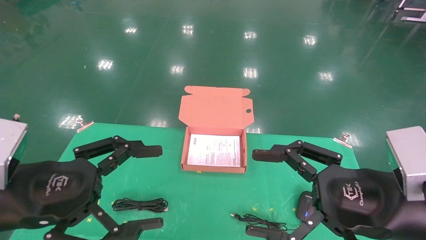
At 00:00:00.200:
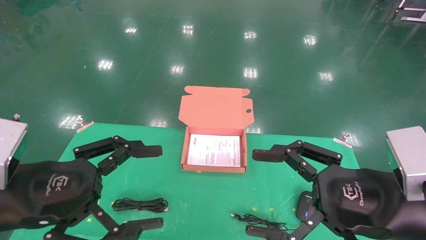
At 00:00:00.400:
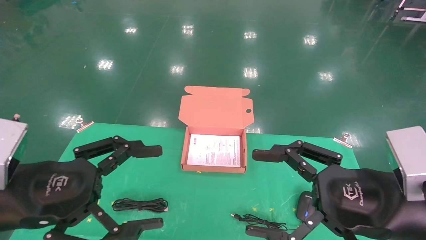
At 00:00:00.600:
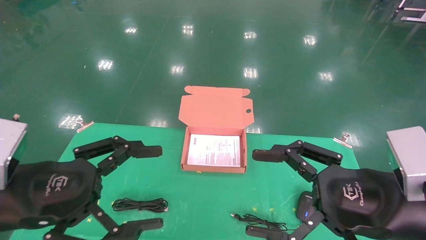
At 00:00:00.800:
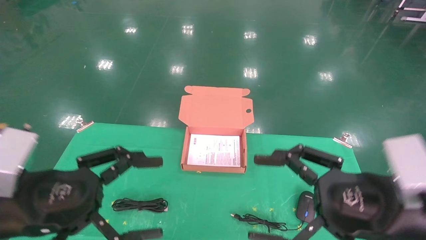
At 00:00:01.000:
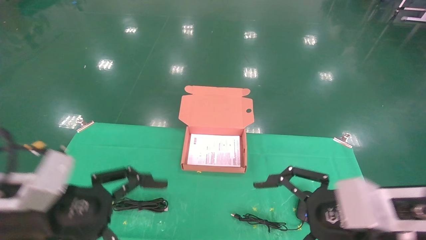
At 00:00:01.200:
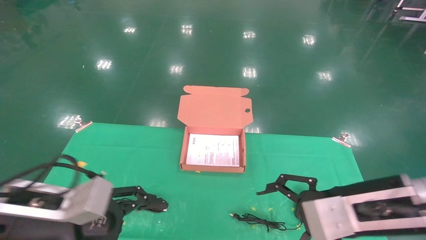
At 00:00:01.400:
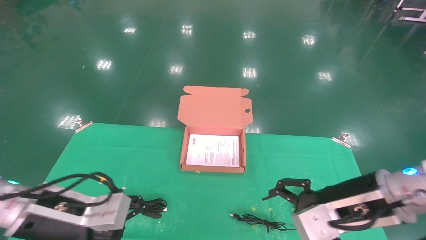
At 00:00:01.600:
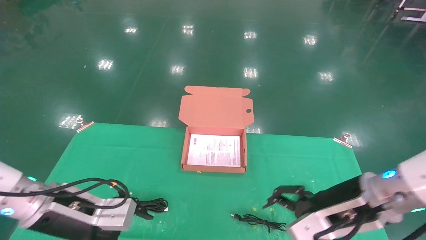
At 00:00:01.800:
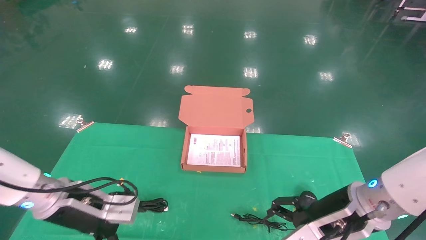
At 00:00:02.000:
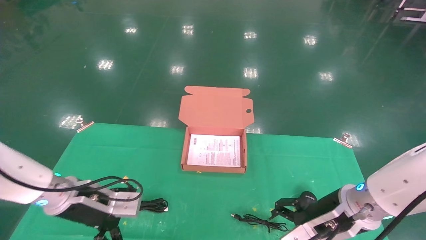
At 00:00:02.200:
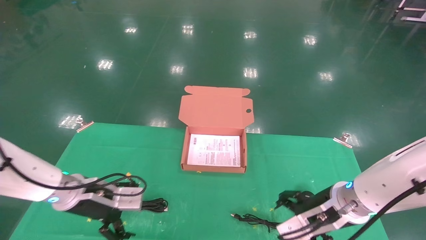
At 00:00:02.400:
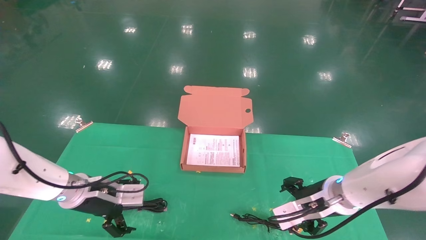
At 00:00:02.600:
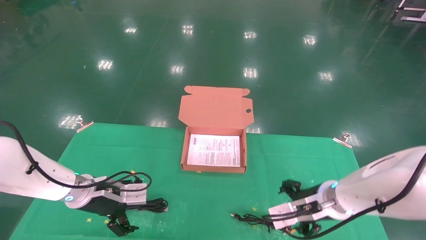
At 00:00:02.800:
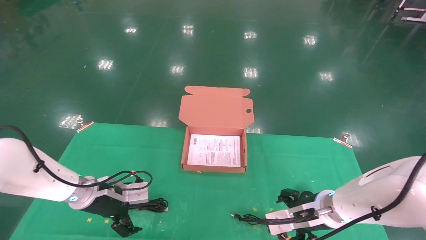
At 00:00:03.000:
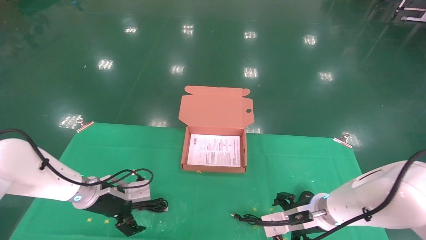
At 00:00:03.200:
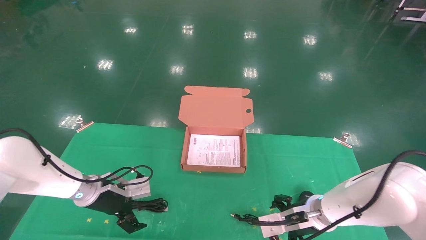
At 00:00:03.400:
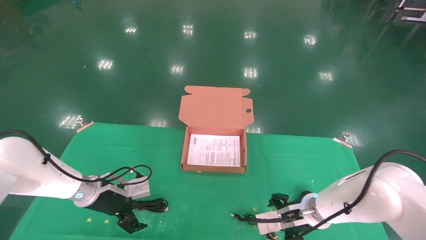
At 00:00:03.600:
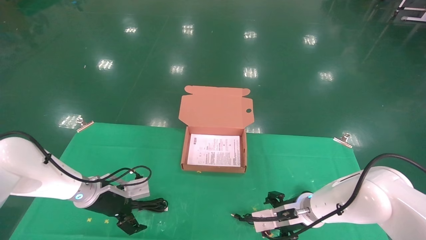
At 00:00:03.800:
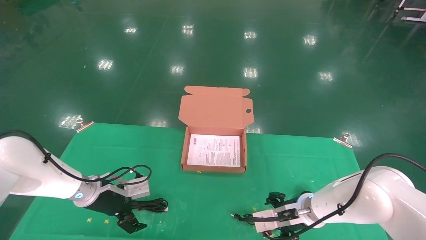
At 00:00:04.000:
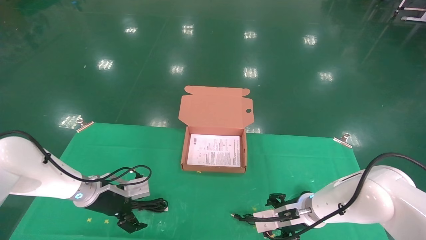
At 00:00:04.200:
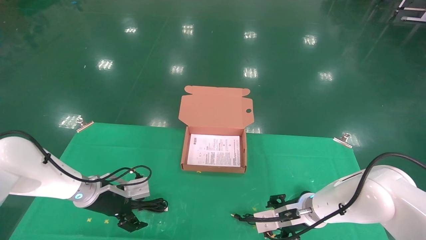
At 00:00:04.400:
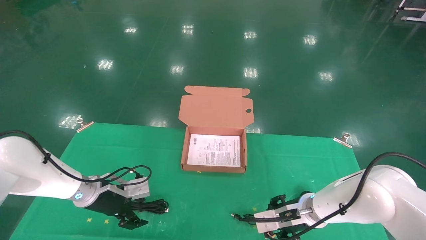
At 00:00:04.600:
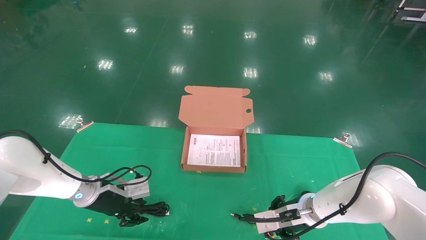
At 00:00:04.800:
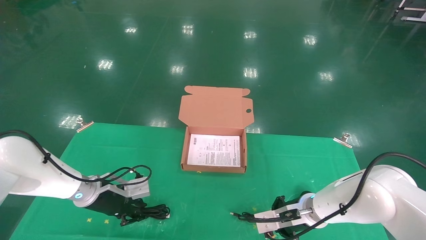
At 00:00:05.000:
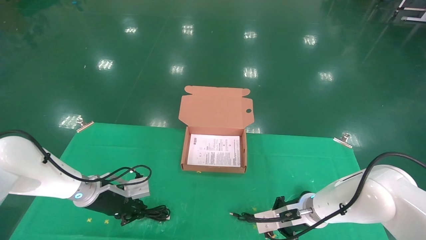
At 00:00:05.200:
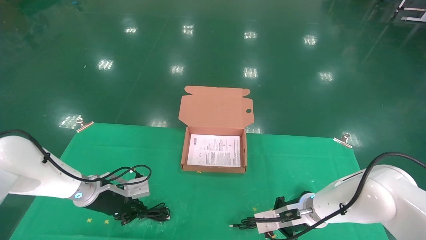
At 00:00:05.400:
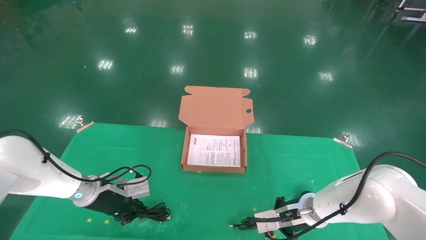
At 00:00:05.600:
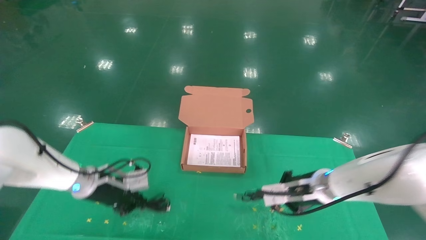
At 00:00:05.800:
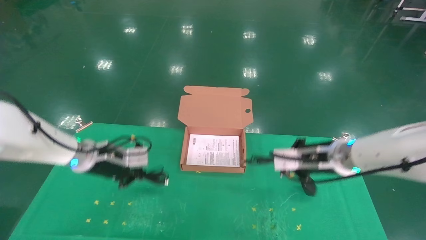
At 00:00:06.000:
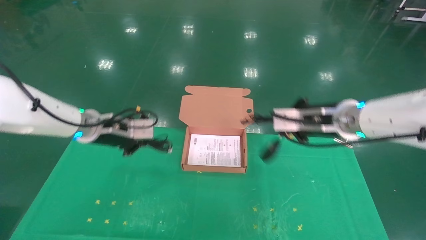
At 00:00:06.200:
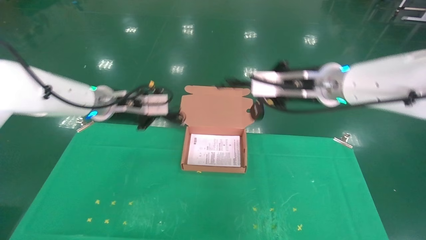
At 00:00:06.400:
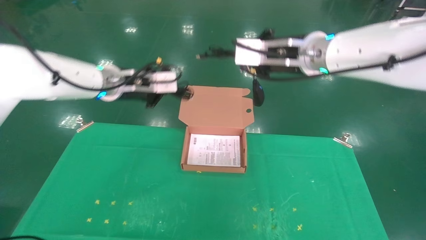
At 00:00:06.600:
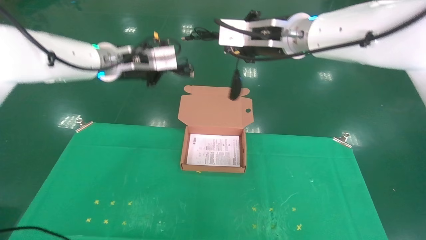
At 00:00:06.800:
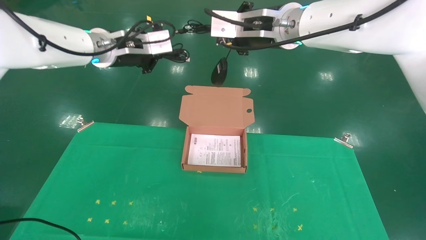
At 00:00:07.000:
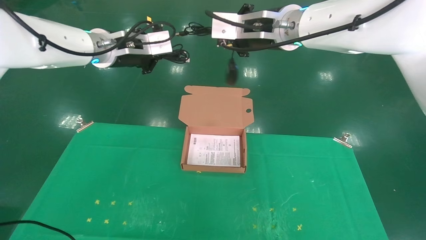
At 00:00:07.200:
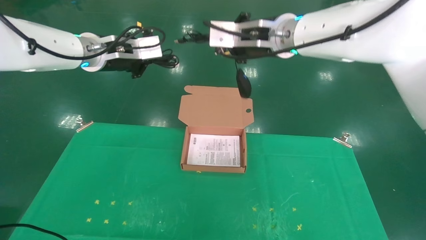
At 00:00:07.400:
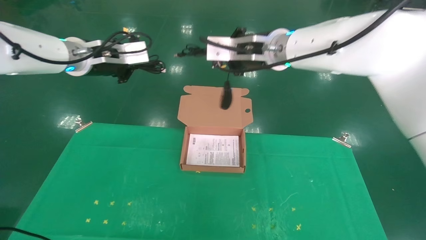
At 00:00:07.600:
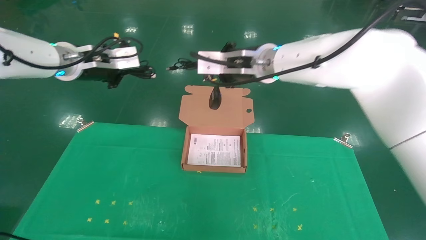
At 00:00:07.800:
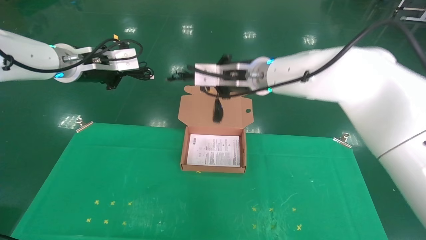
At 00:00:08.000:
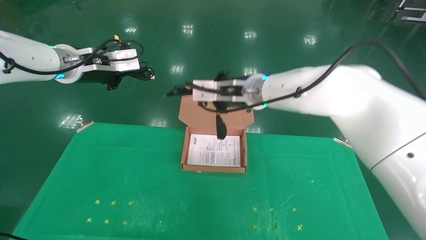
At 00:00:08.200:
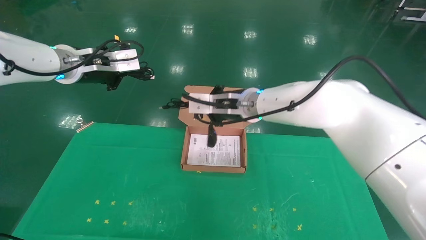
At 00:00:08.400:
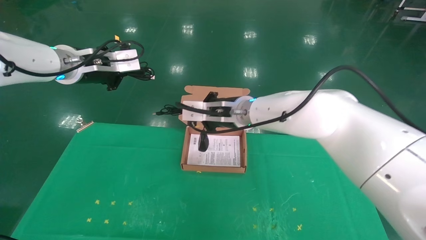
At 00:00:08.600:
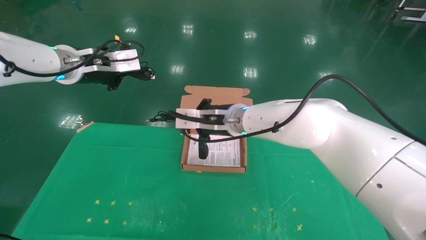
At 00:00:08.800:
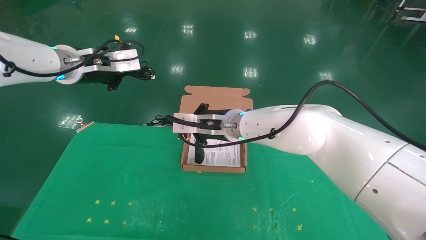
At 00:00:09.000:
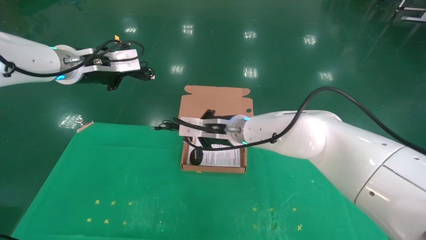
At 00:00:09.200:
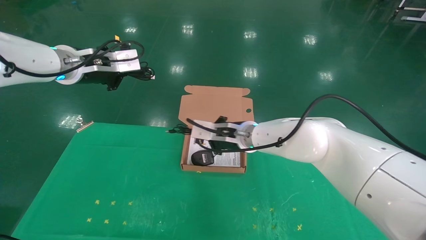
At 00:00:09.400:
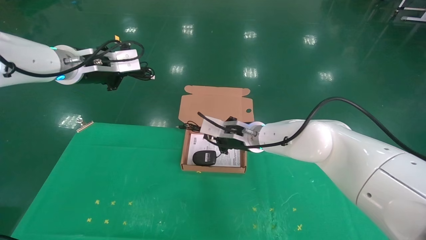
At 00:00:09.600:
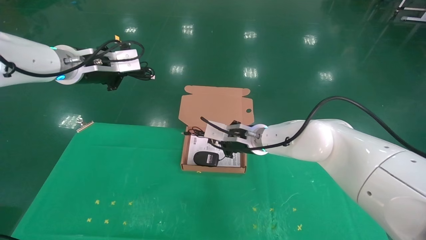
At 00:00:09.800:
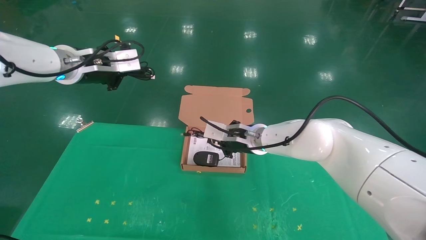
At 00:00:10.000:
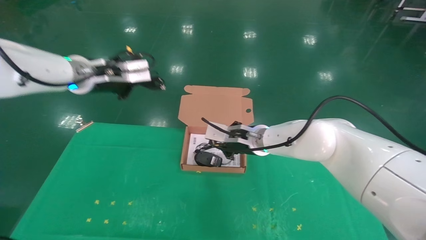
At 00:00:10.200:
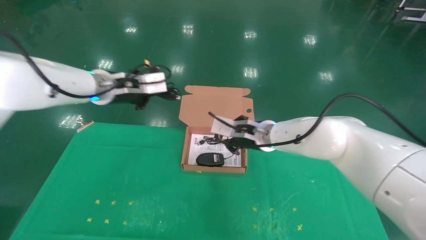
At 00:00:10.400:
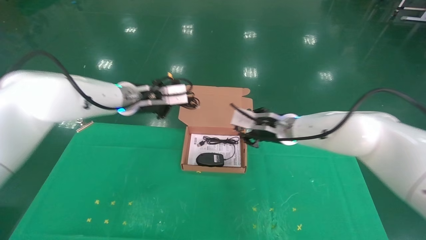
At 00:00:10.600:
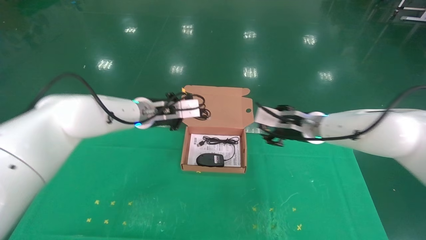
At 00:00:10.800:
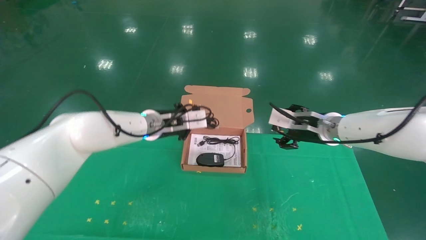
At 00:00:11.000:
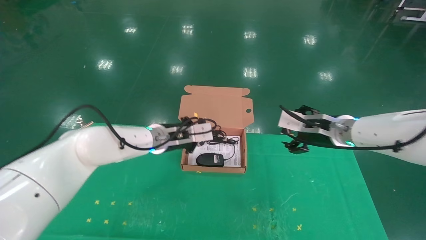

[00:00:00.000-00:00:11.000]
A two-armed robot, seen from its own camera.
Task of the whole recording: grasp data cable left put into box grasp mouse right put into box.
Step, 00:00:00.800 to 00:00:05.800: Grab and pick up both the mouse and power cord from the accessory packaging area at the same time.
00:00:00.000 to 00:00:01.600: The left gripper heads forward and downward, covering roughly 10 cm. The right gripper travels forward by approximately 10 cm.
00:00:01.600 to 00:00:03.200: The left gripper heads forward and downward, covering some 15 cm. The right gripper shifts some 15 cm downward and forward.
00:00:03.200 to 00:00:04.800: The right gripper closes up, while the left gripper closes.
00:00:04.800 to 00:00:06.200: The two grippers go roughly 25 cm upward. The left gripper closes up. Meanwhile the right gripper closes its fingers.
00:00:06.200 to 00:00:07.800: The right gripper goes some 10 cm to the left. The left gripper travels upward by approximately 10 cm.
00:00:07.800 to 00:00:09.400: The right gripper goes approximately 15 cm downward.
00:00:09.400 to 00:00:11.000: The left gripper is displaced downward and to the right by approximately 25 cm, while the right gripper is displaced to the right by approximately 20 cm, and opens its fingers.

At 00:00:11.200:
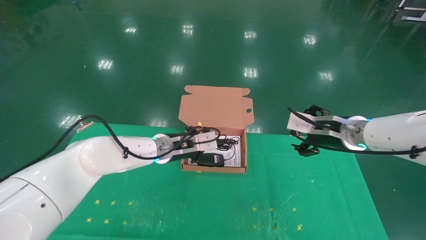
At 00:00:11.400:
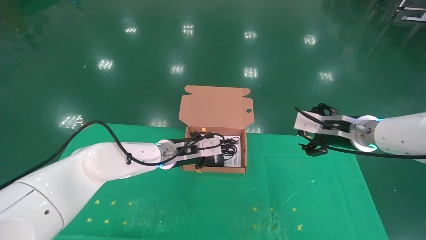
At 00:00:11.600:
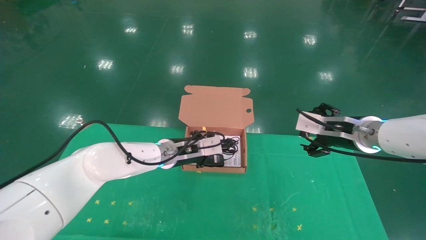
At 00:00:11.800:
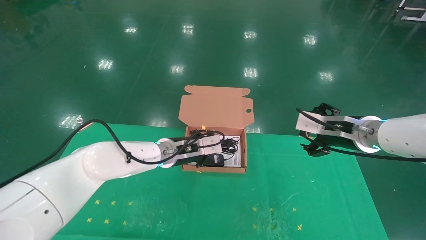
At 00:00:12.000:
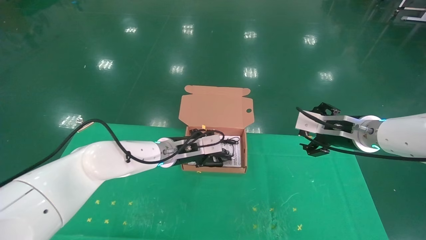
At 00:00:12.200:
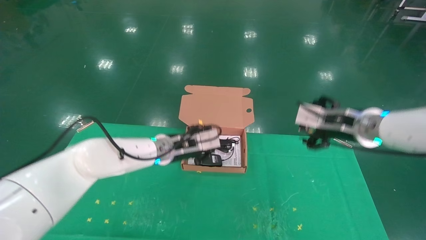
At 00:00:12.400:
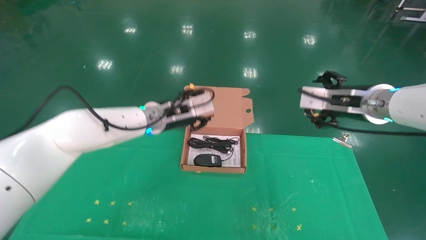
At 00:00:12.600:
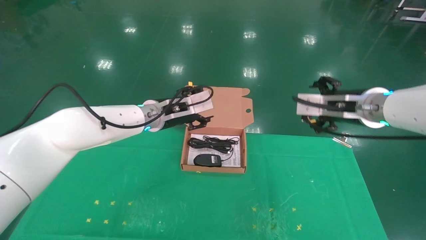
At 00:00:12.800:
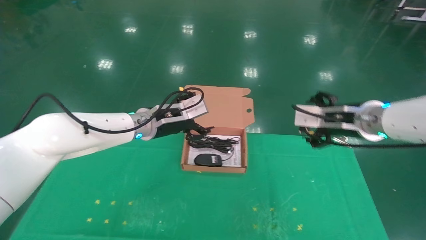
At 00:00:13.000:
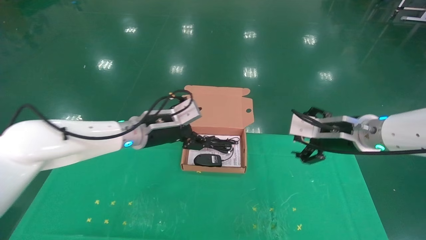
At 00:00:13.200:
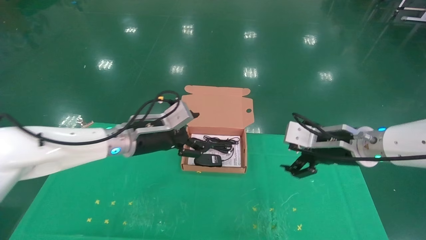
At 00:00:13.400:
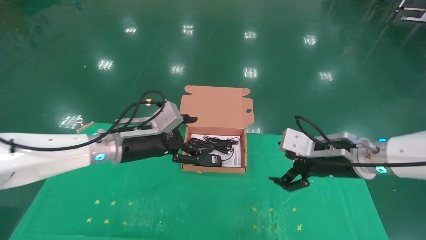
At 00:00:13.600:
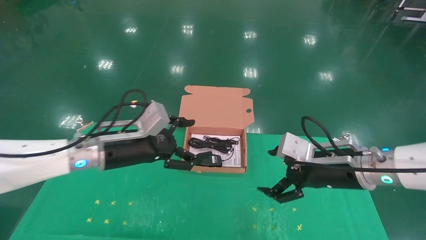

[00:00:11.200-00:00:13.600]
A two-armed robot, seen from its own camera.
Task of the whole recording: grasp data cable left put into box grasp mouse right put into box.
00:00:11.200 to 00:00:12.400: The right gripper goes about 5 cm upward.
00:00:12.400 to 00:00:13.600: The left gripper is displaced backward and to the left by approximately 10 cm, and opens its fingers; the right gripper is displaced downward by approximately 5 cm.
